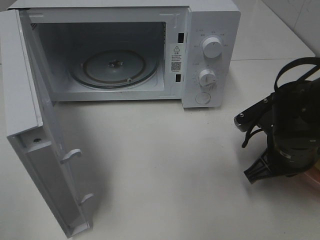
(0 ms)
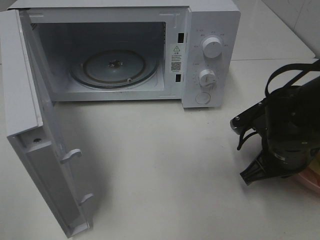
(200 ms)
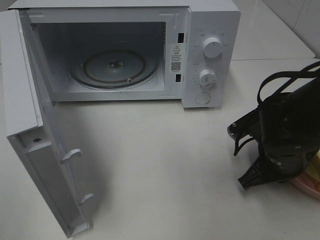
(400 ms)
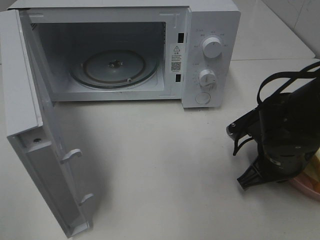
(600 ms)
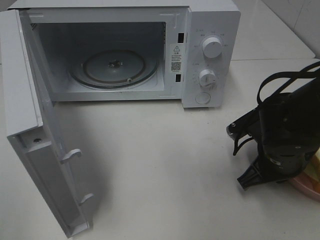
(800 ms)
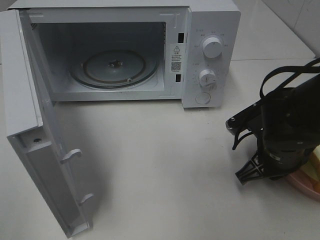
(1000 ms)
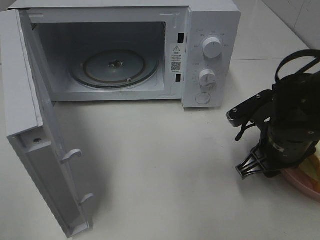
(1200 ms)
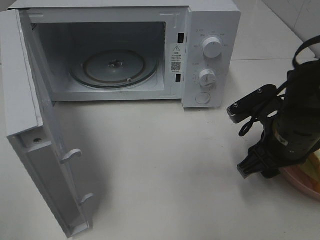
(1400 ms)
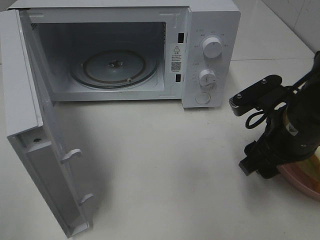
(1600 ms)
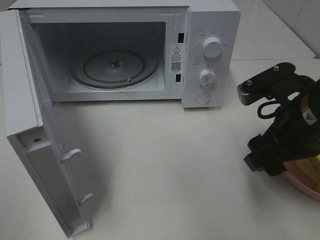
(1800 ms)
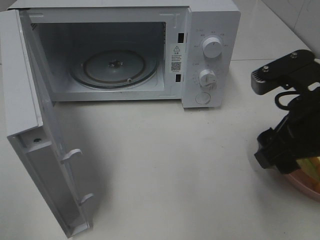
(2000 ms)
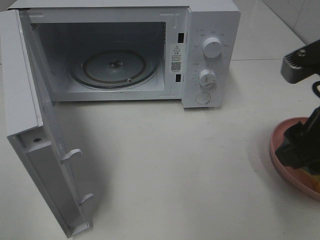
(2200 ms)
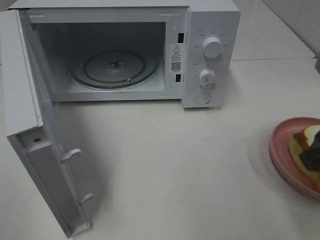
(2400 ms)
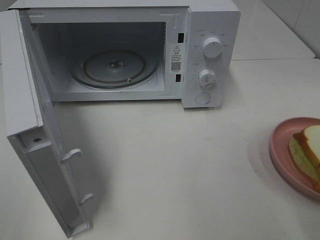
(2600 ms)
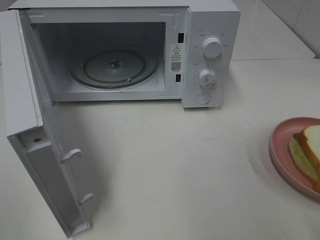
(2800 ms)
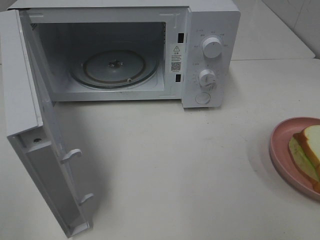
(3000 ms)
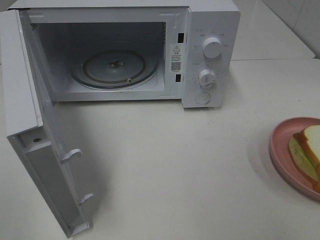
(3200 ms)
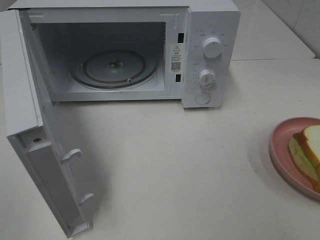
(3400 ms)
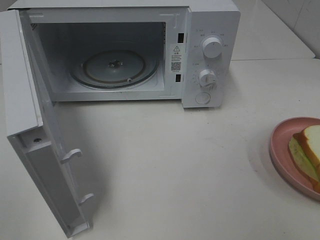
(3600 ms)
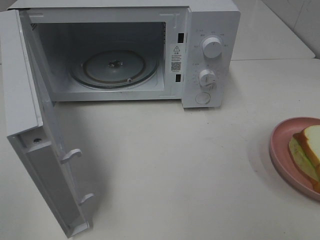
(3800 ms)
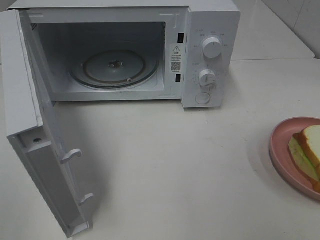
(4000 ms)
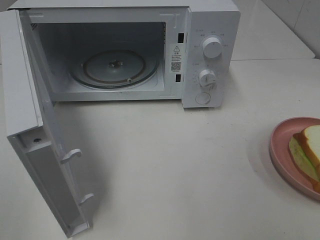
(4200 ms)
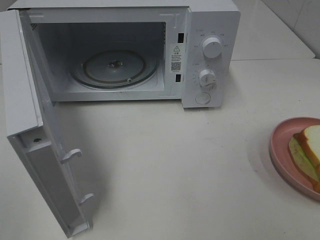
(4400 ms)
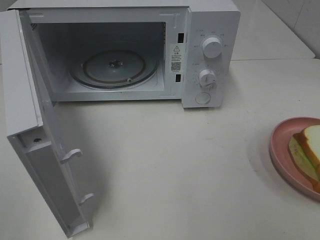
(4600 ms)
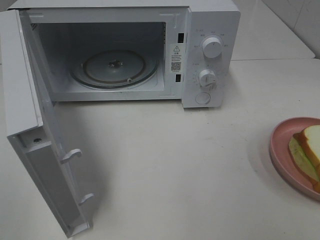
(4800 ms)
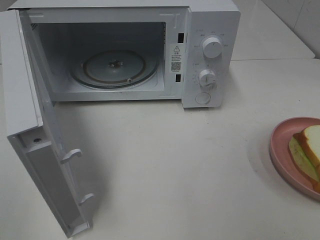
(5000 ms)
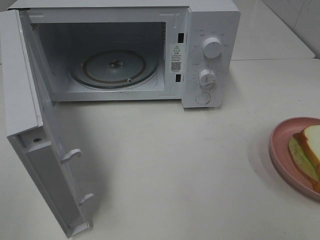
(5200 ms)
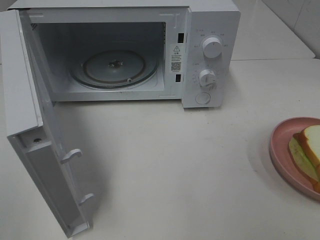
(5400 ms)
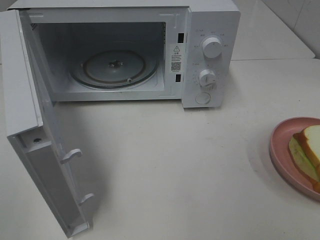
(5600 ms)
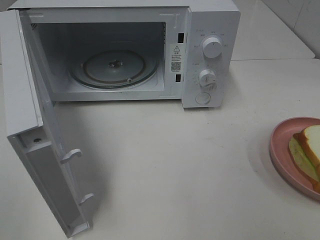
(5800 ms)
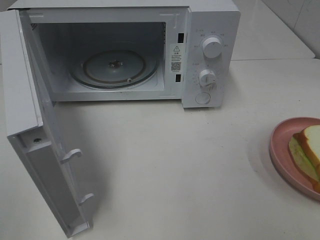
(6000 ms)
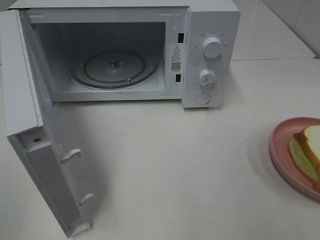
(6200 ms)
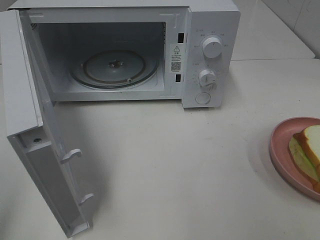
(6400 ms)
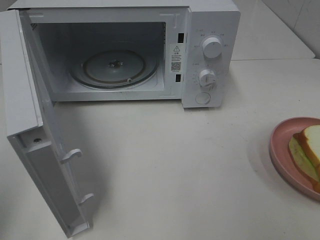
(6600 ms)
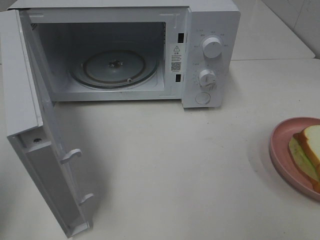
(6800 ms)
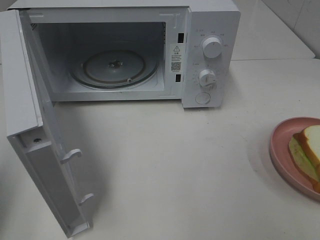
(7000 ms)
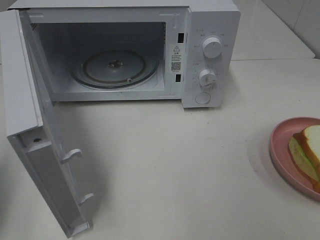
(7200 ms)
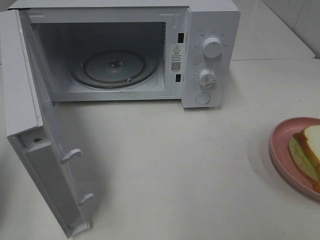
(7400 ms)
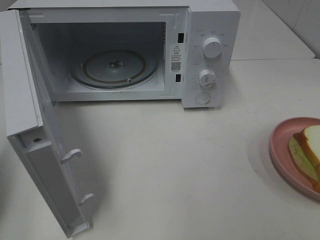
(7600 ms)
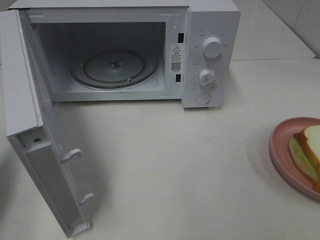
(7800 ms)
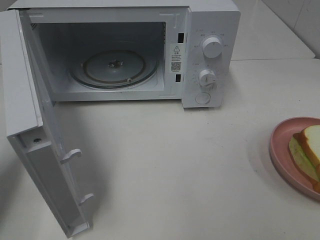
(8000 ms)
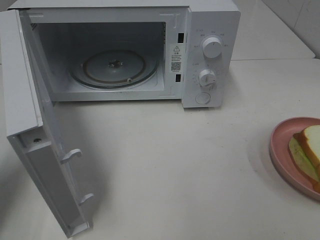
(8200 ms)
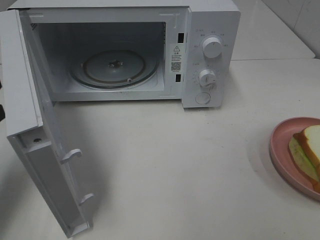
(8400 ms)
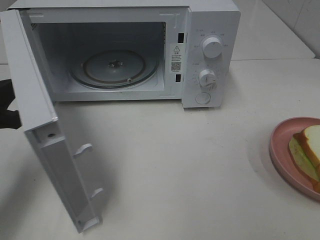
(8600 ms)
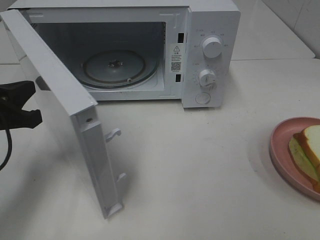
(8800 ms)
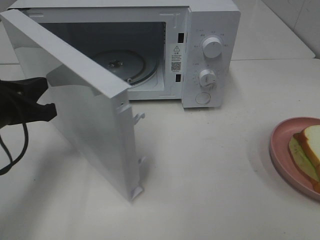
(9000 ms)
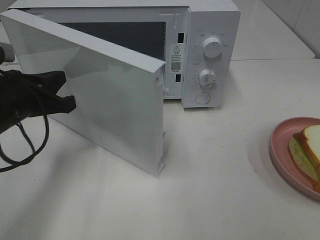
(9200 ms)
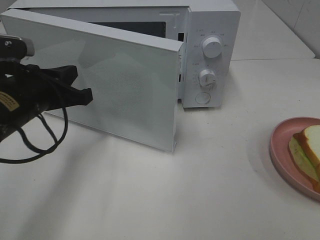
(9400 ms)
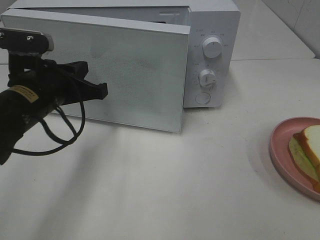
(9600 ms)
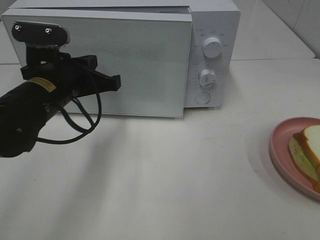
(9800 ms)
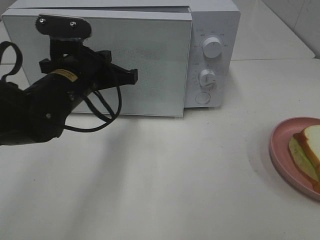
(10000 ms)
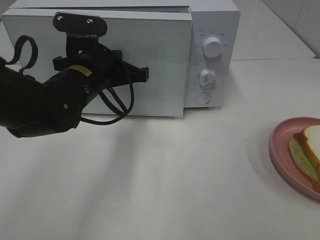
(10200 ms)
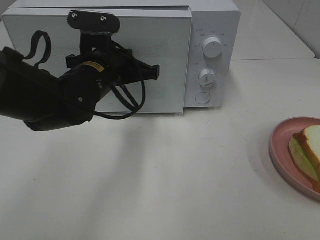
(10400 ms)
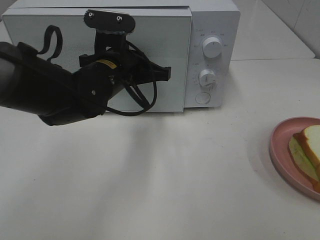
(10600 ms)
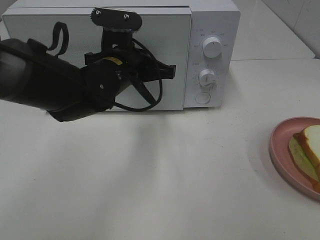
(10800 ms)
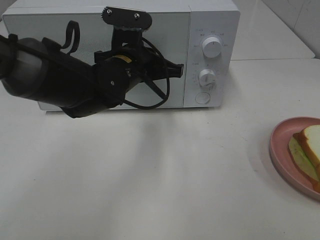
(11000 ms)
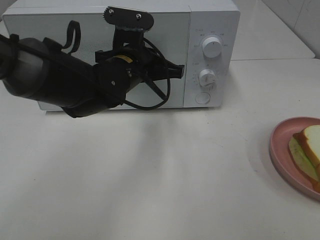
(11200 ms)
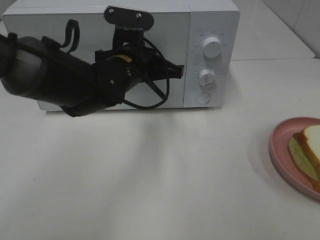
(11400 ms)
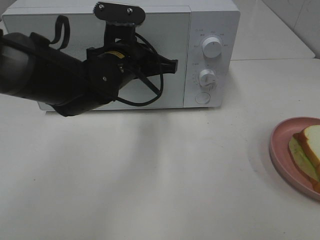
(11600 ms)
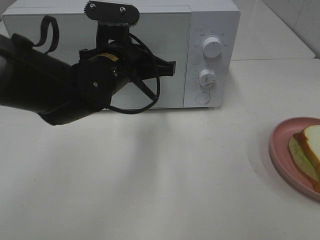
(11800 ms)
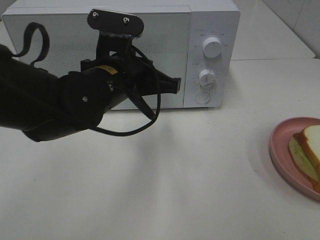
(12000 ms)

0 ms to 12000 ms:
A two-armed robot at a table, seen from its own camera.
Task of the whole recording: Heat Sandwich.
Step, 0 ms to 2200 ms: Right hand: place the plate on the table.
Step, 2400 ms to 12000 ms: Left hand: close the microwave door.
0 ms to 1600 ms: The right gripper moves upward, some 5 cm, and opens its fingers.
1600 ms to 3000 ms: The right gripper shifts some 25 cm backward, upward and to the right.
6000 ms to 7600 ms: The left gripper heads forward and downward, covering some 15 cm, and closes.
7600 ms to 9000 ms: The left gripper is displaced to the right, forward and downward by roughly 15 cm.
9000 ms to 10400 ms: The left gripper is displaced to the right and forward by some 15 cm.
10400 ms to 12000 ms: The left gripper ends up some 5 cm from where it was.

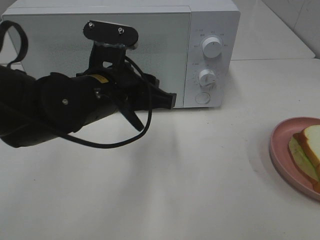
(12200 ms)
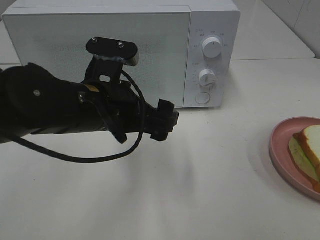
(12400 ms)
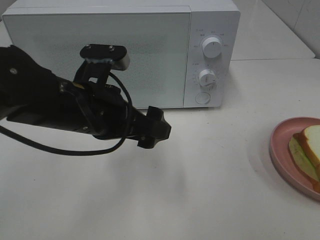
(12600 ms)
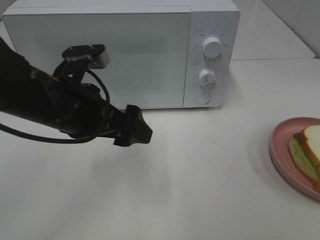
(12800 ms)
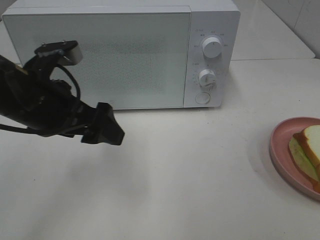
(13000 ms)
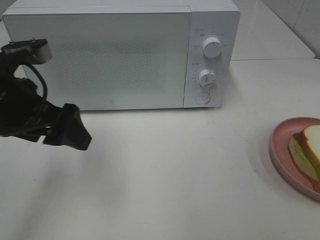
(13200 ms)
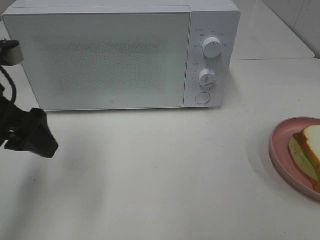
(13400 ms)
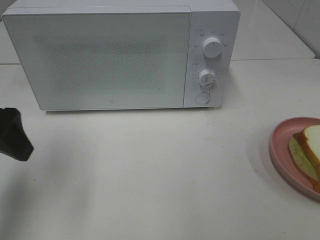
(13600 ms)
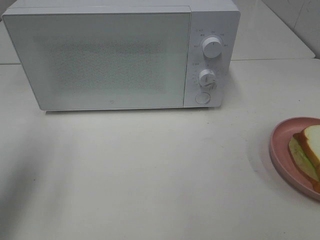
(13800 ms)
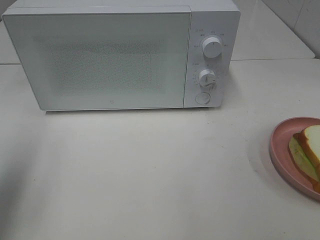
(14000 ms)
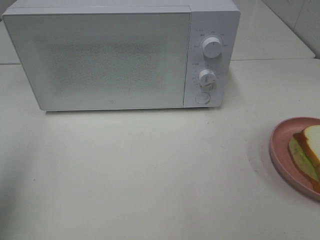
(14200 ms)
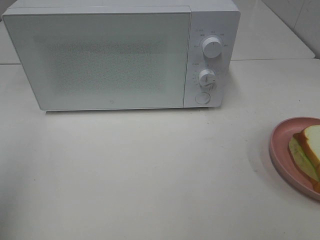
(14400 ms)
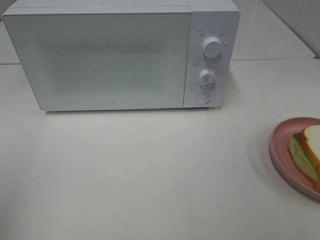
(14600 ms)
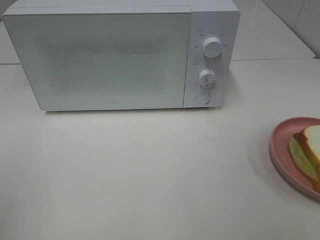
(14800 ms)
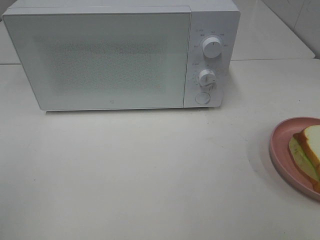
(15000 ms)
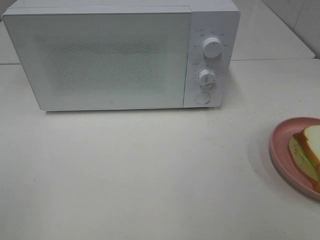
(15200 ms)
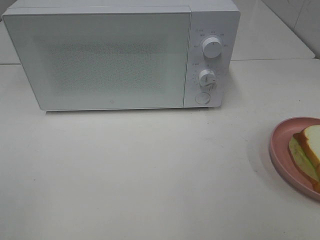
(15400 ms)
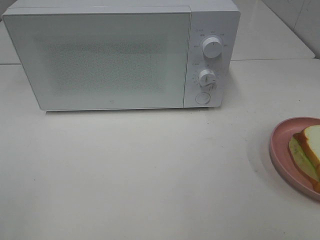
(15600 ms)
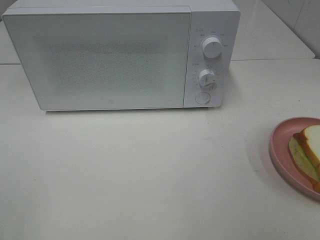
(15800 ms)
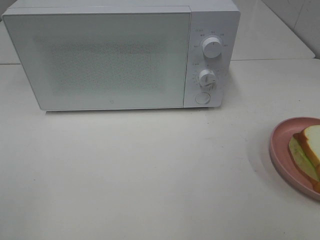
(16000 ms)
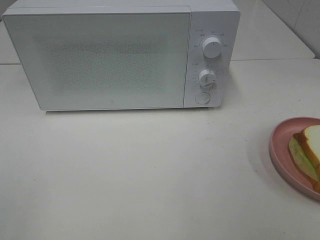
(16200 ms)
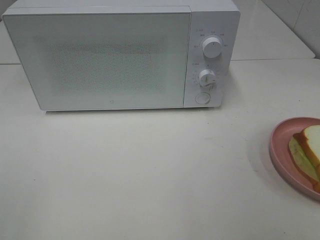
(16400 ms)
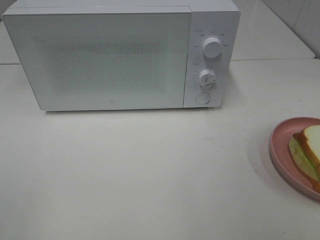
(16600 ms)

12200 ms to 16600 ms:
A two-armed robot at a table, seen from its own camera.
Task of the whole recording: Heat Sandwich.
12200 ms to 13600 ms: The left gripper heads to the left, covering about 20 cm, and opens up.
13600 ms to 15200 ms: The left gripper moves backward, some 20 cm.

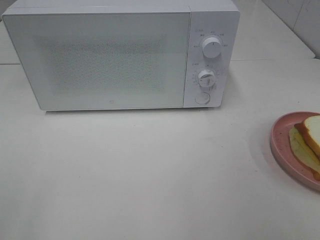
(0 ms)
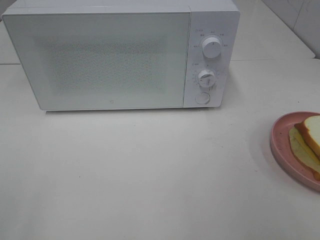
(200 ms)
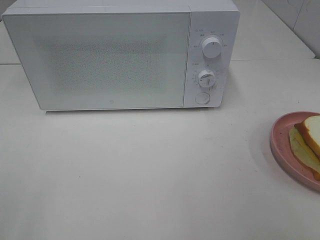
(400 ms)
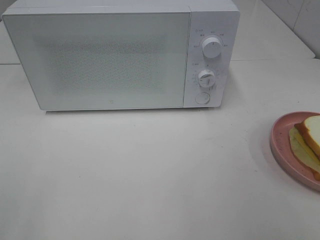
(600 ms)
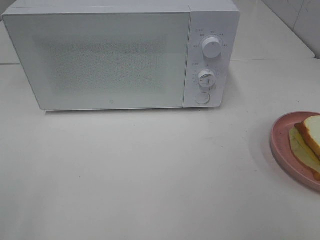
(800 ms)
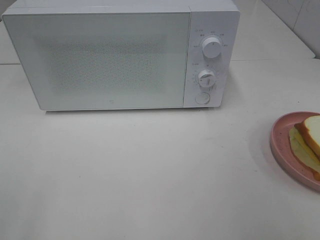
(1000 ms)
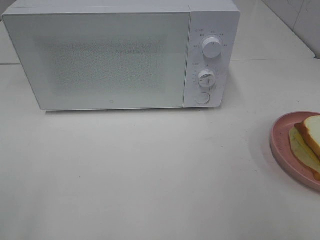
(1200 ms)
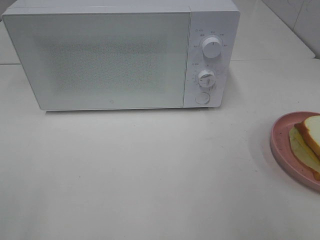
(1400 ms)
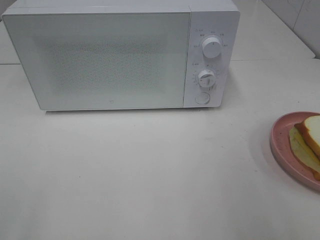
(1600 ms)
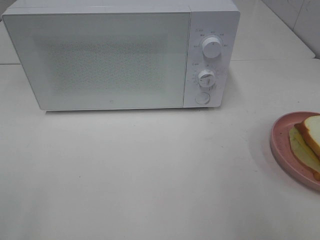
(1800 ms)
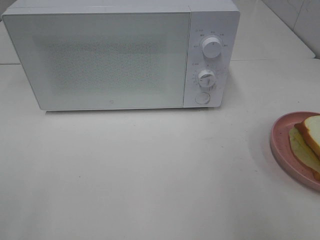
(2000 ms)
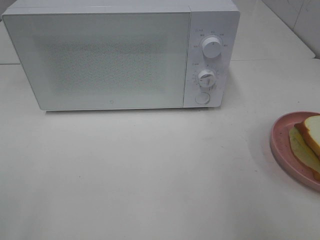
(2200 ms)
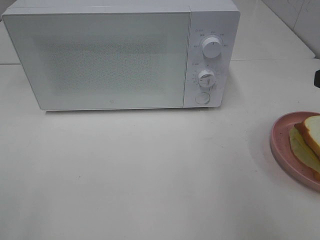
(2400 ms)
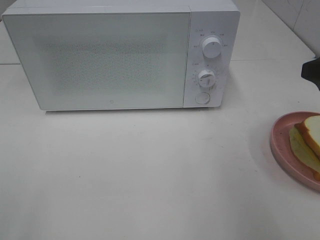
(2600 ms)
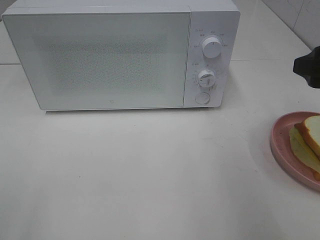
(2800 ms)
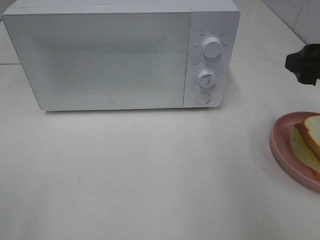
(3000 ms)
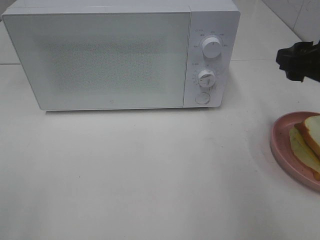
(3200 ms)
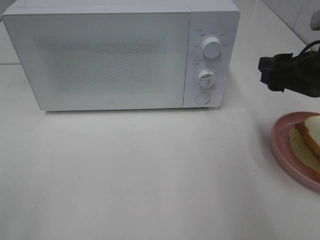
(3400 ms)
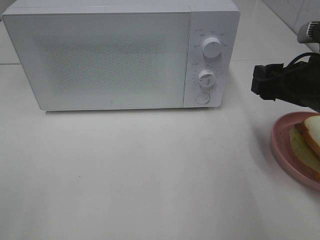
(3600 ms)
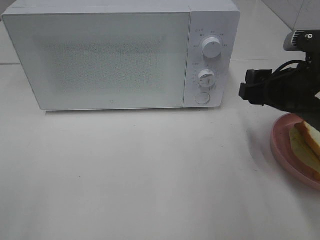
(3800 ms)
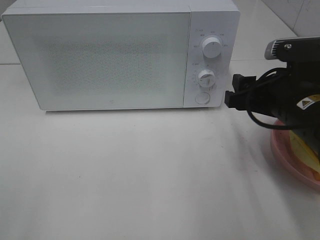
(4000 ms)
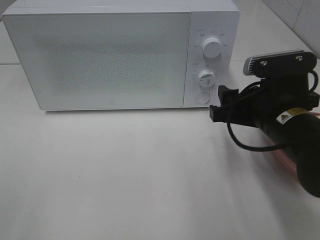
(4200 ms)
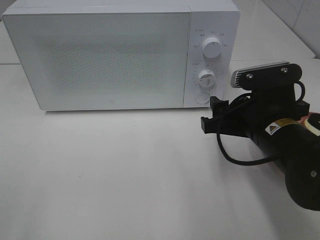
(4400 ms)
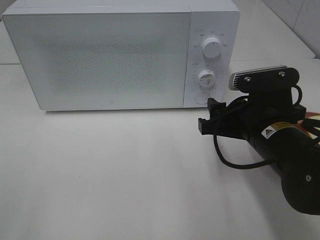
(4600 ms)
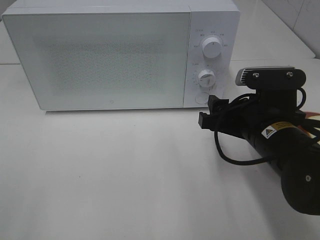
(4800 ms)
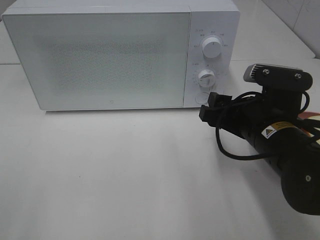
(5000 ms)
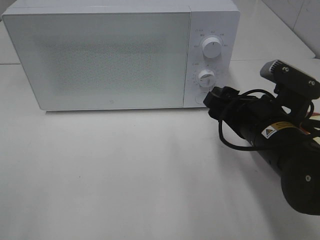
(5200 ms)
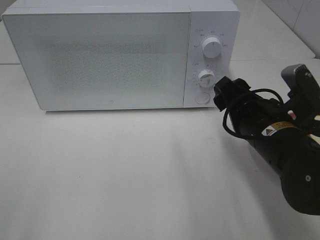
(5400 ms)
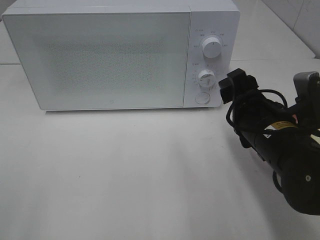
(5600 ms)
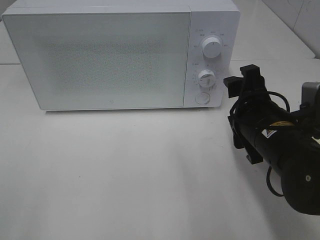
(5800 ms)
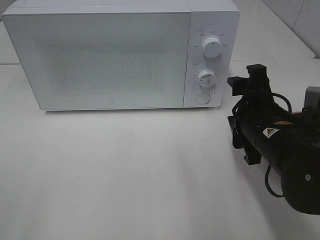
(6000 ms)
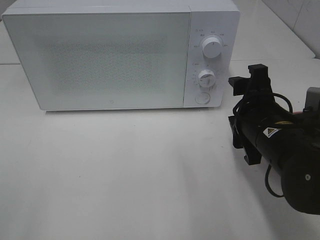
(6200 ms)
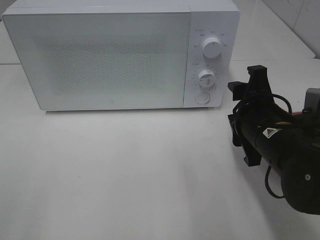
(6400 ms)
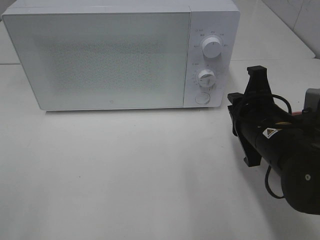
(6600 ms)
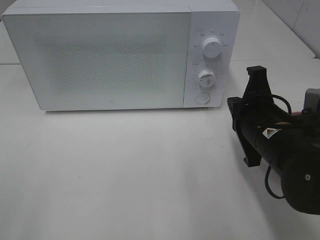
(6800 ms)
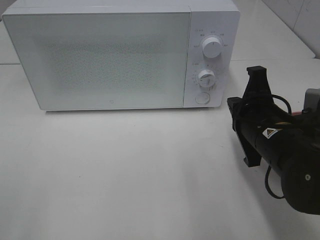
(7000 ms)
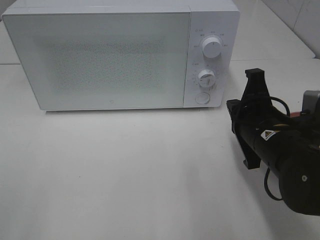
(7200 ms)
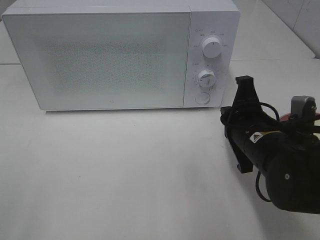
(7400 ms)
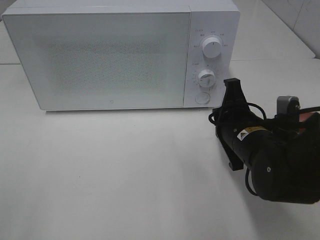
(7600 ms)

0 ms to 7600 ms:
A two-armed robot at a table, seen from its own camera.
Task of the whole recording: Heat Sandwich.
1600 ms to 3000 ms: The right gripper goes some 15 cm forward.
3000 ms to 4600 ms: The right gripper shifts roughly 15 cm to the left and downward.
6000 ms to 7600 ms: The right gripper closes its fingers.
